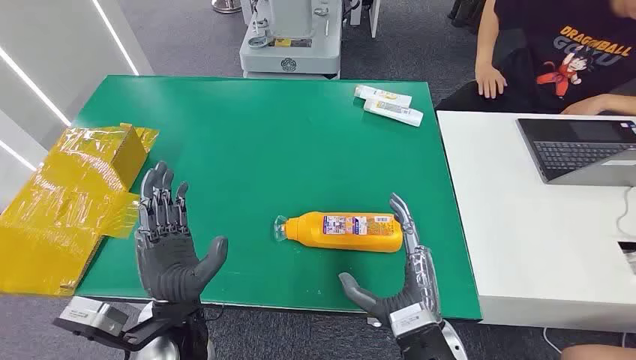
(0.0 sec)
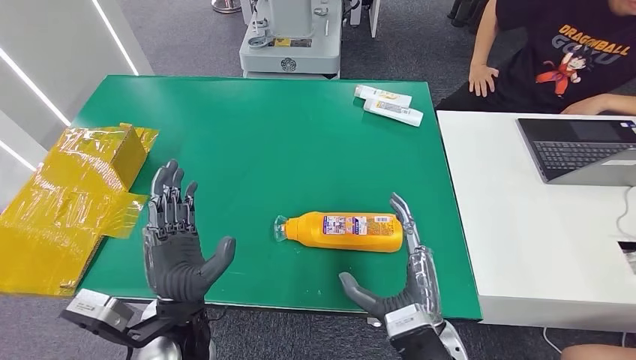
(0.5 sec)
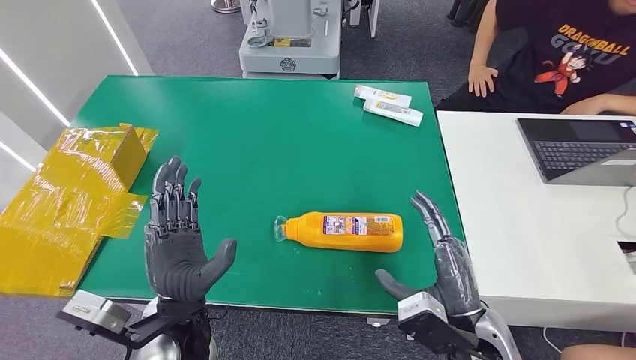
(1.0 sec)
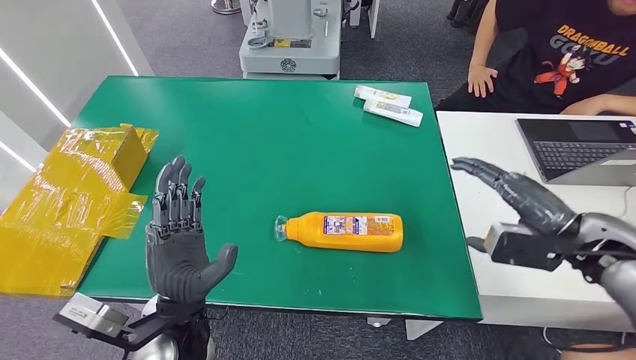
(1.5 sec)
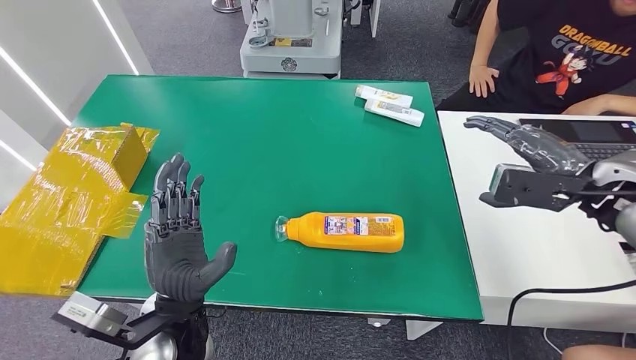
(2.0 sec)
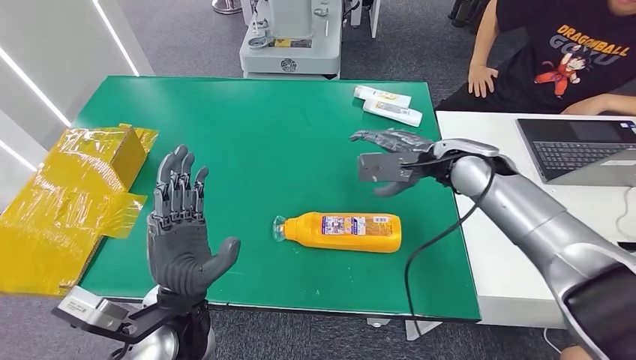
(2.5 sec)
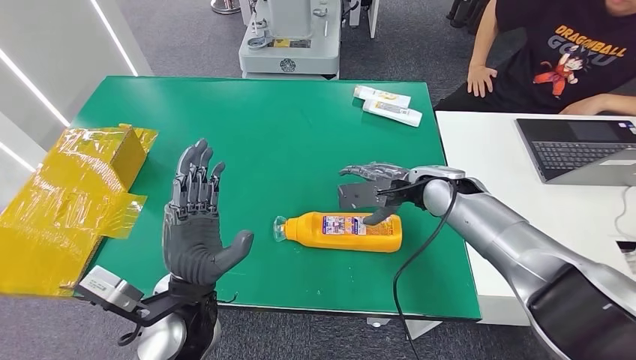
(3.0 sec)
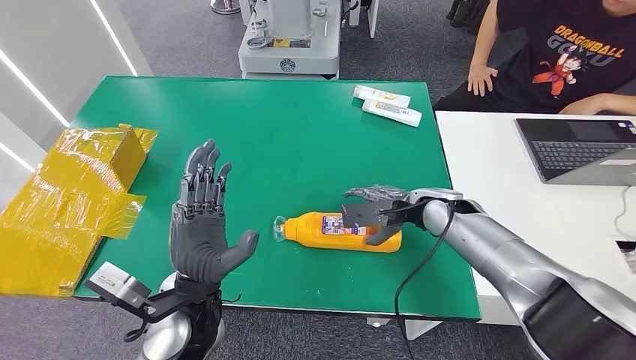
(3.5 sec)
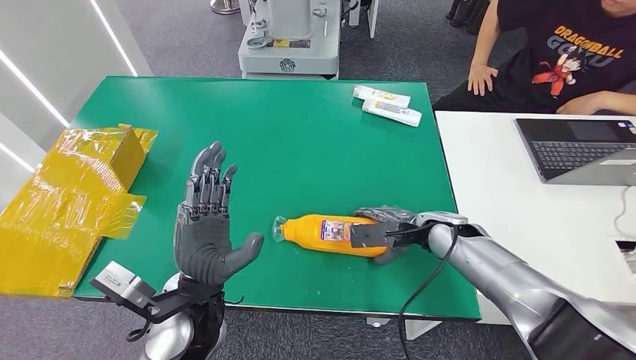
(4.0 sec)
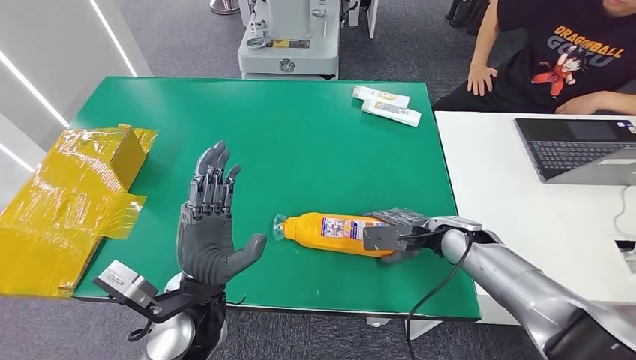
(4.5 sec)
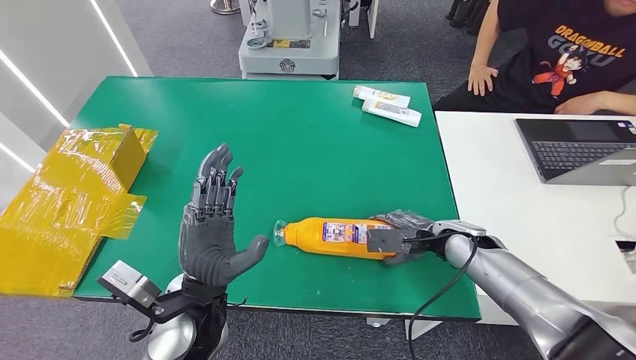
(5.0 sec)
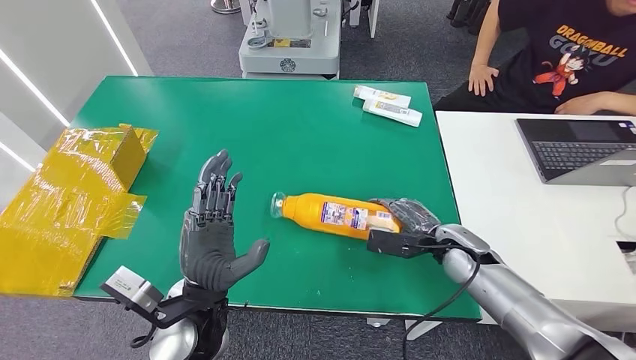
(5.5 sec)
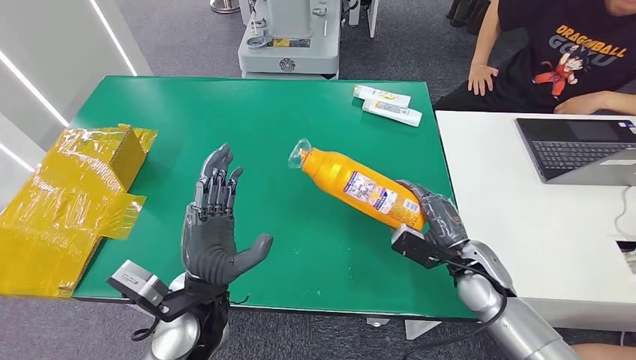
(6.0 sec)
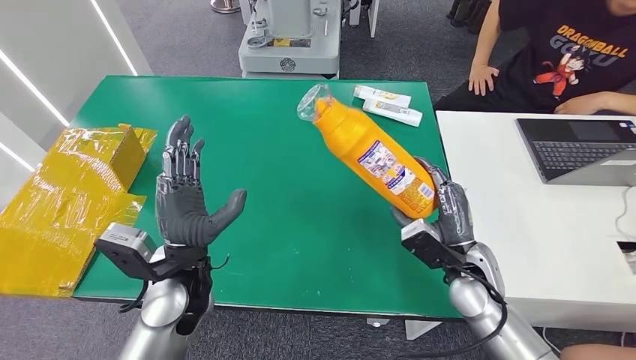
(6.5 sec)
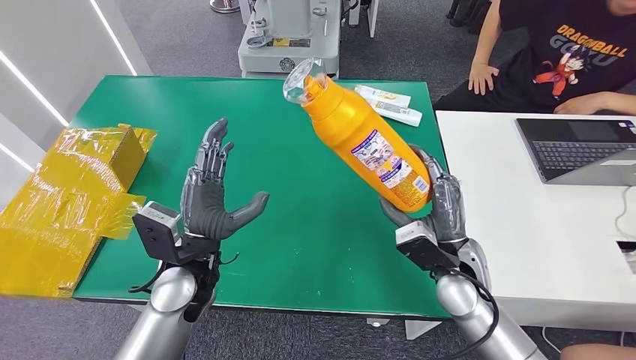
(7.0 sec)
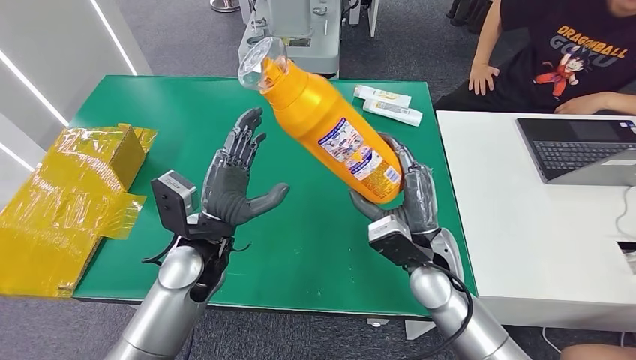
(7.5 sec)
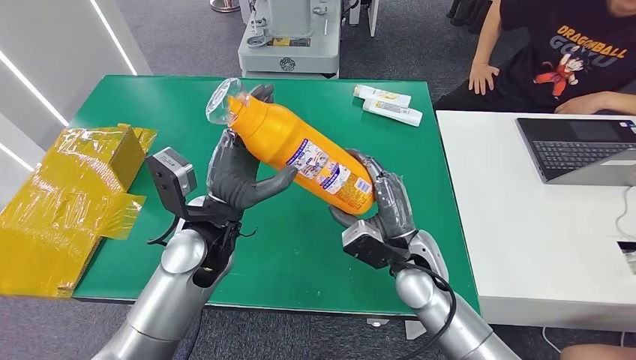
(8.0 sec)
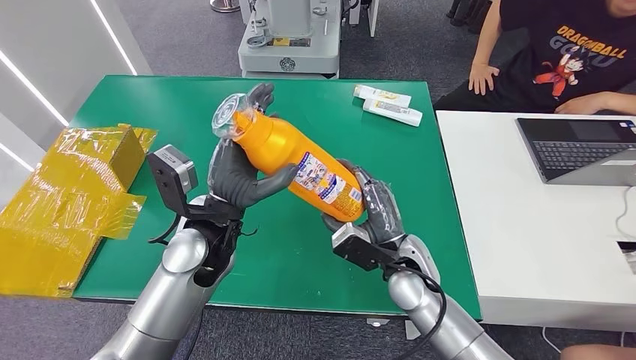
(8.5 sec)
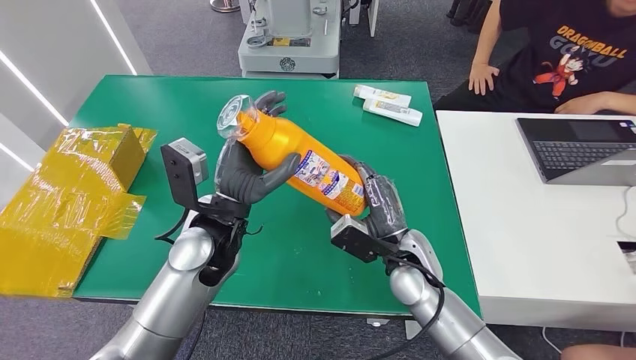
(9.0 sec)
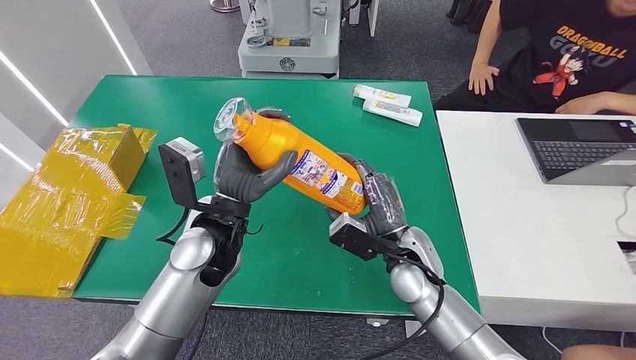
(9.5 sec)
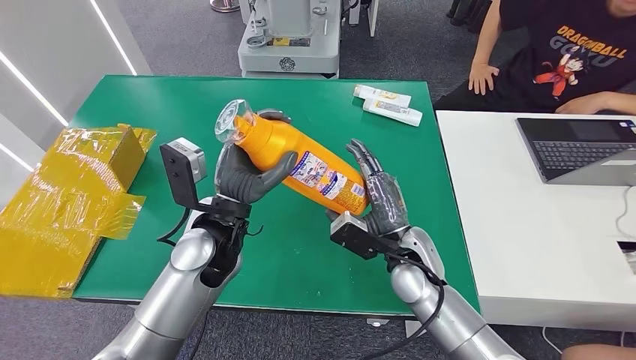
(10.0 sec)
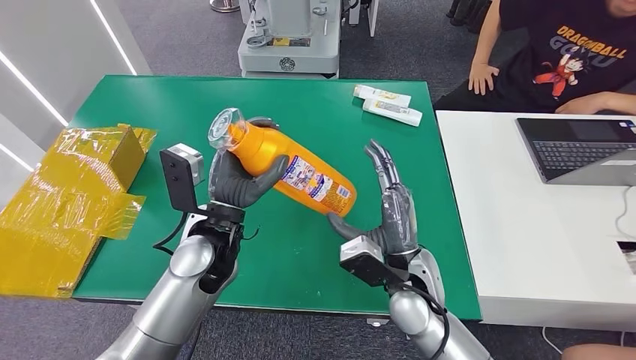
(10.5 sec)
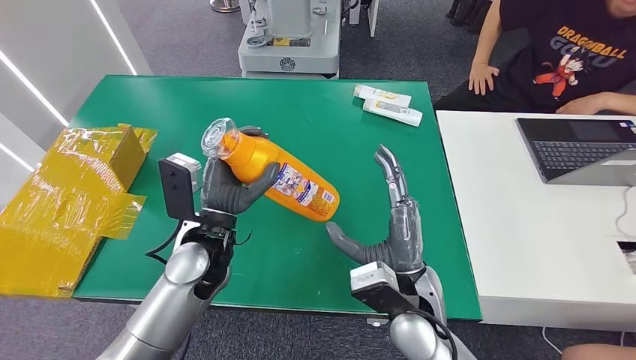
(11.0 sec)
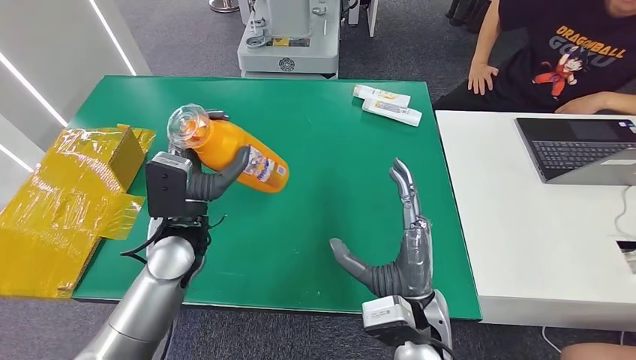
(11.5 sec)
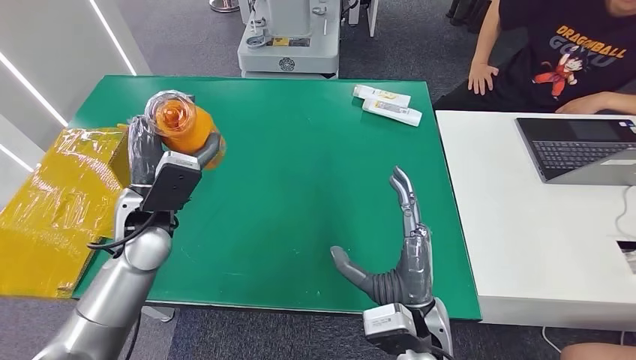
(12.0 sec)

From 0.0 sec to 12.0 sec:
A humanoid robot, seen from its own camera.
Step, from 0.0 sec to 6.5 sec: Pick up the bottle from the table.
From 4.0 sec to 6.0 sec: The right hand moves backward, about 10 cm.
From 8.0 sec to 10.0 sec: There are only small adjustments of the hands.

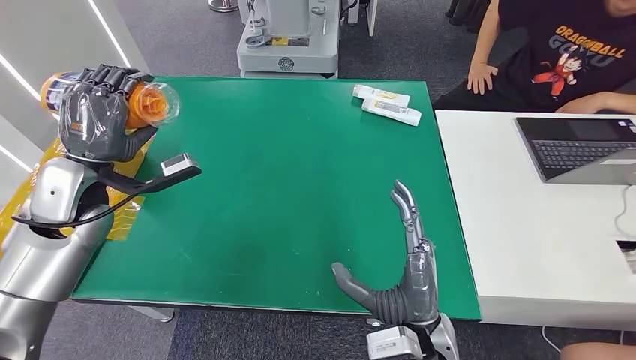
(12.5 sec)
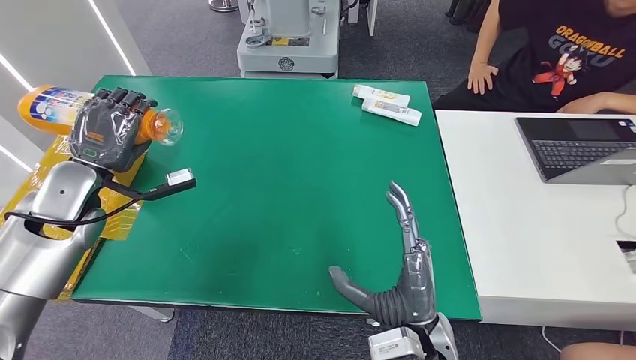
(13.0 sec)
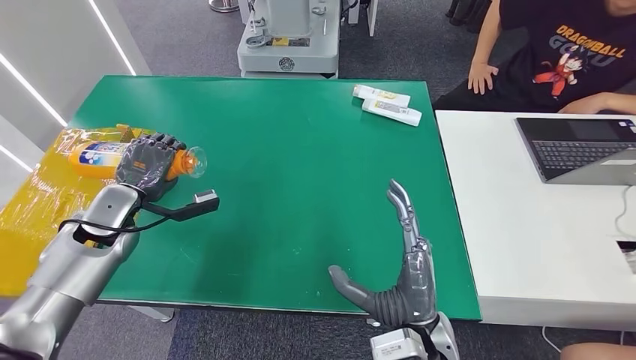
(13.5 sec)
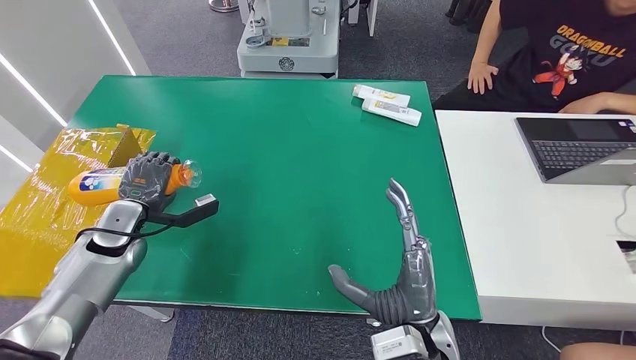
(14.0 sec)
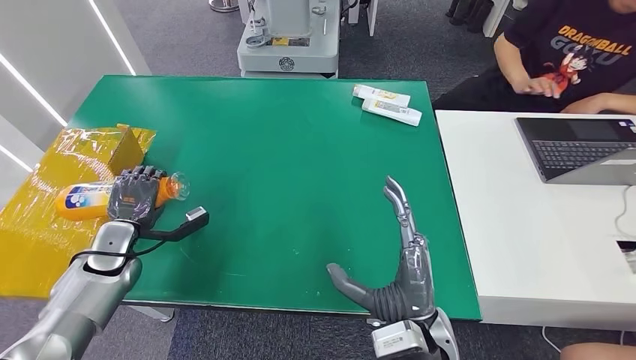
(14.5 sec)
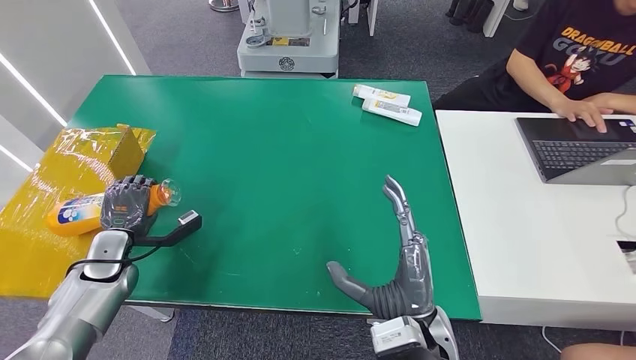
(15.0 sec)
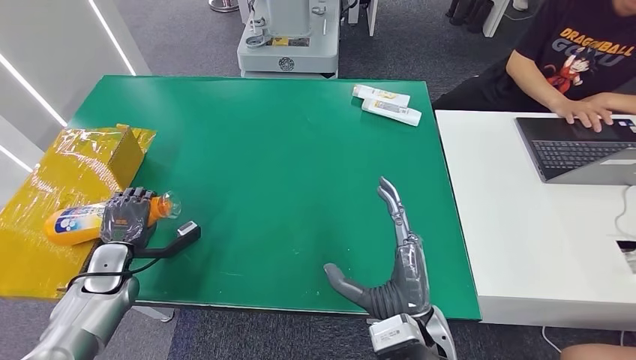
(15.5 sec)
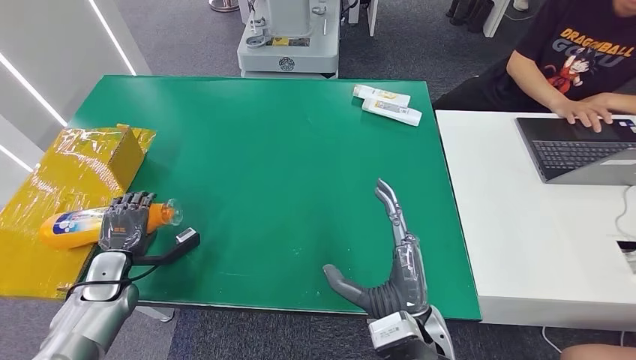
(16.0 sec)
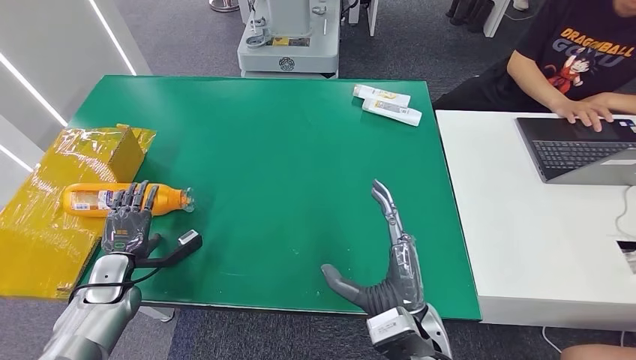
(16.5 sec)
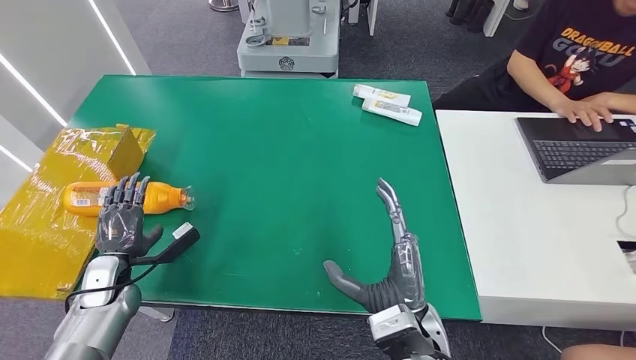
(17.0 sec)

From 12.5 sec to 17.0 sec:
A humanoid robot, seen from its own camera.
Step, from 12.5 sec to 17.0 sec: Turn the bottle to the front side.
From 12.5 sec to 14.5 sec: The left hand moves downward, roughly 20 cm.
From 14.5 sec to 17.0 sec: The left hand heads backward, covering about 5 cm.

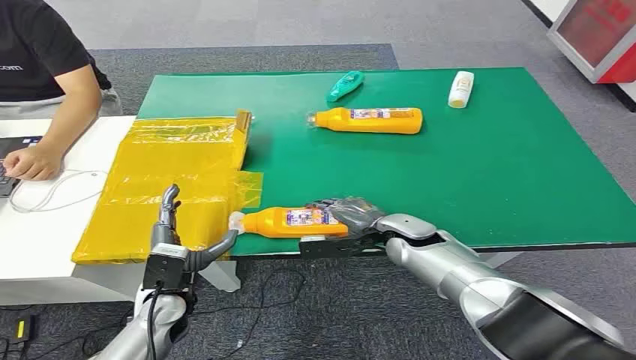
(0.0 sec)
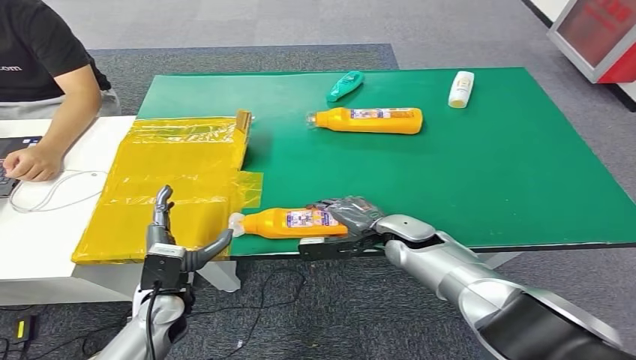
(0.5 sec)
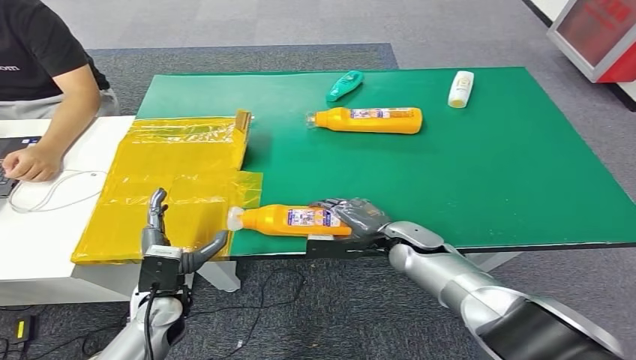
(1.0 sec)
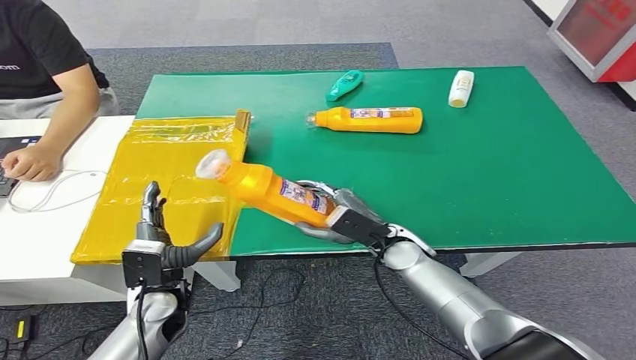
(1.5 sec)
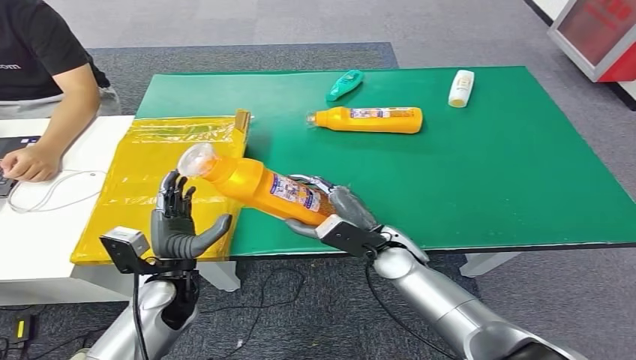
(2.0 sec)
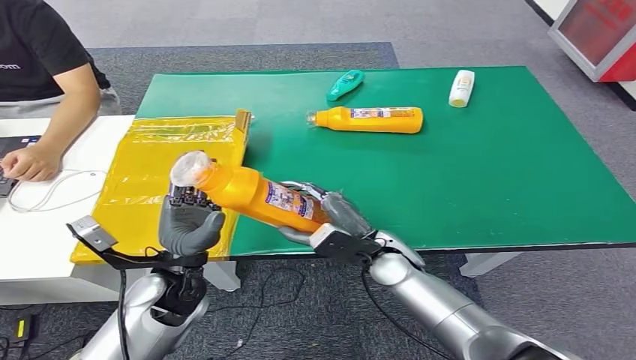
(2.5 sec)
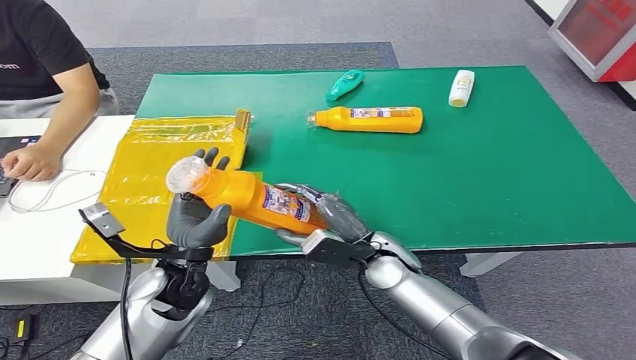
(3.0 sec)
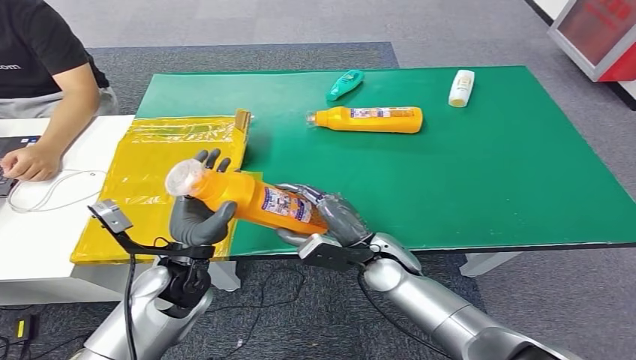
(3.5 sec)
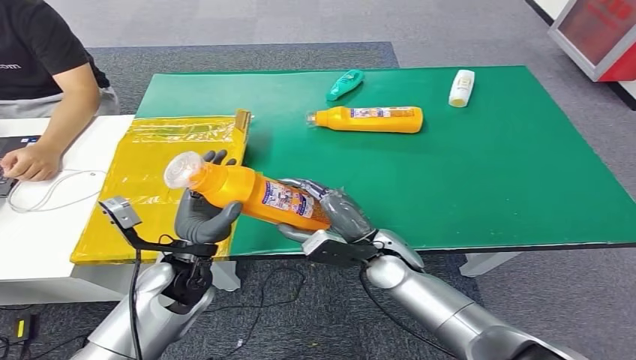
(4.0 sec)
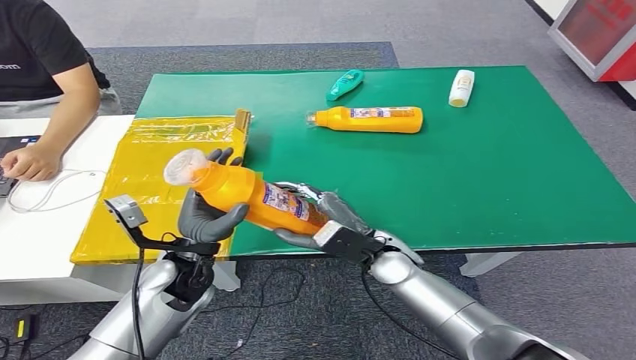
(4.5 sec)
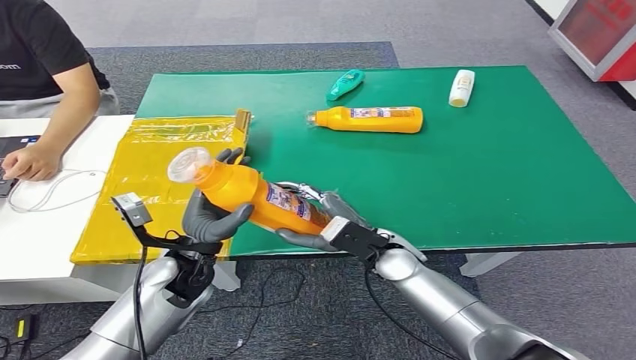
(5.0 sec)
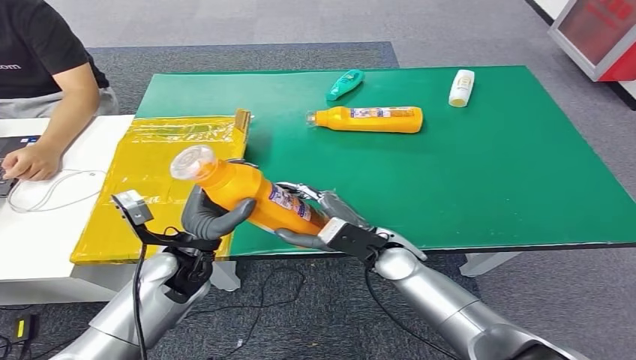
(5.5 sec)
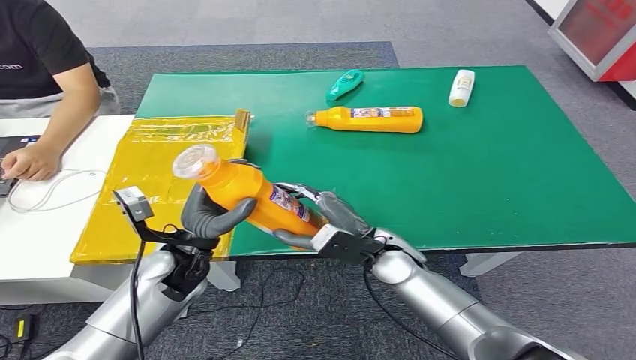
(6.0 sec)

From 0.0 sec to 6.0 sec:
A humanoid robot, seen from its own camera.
Step, from 0.0 sec to 1.5 sec: Pick up the bottle from the table.
From 2.0 sec to 4.0 sec: The left hand shifts by about 5 cm.
From 4.0 sec to 6.0 sec: The hands make only small movements.
